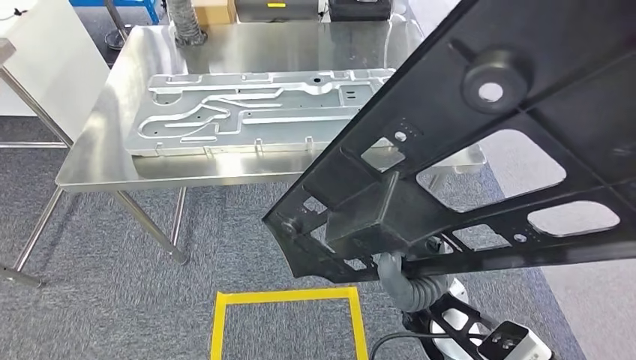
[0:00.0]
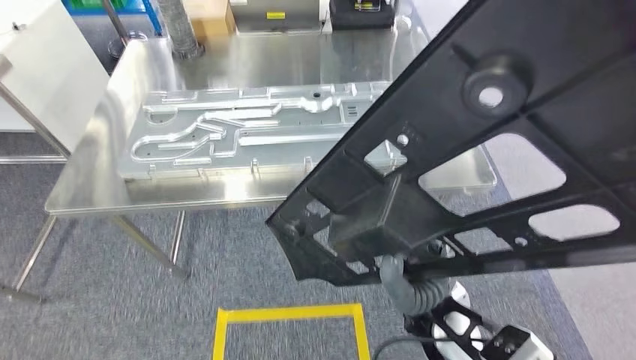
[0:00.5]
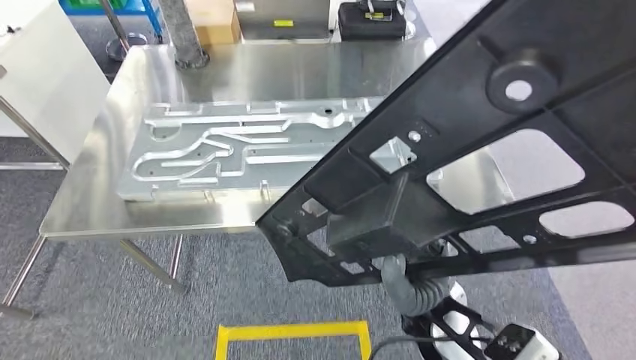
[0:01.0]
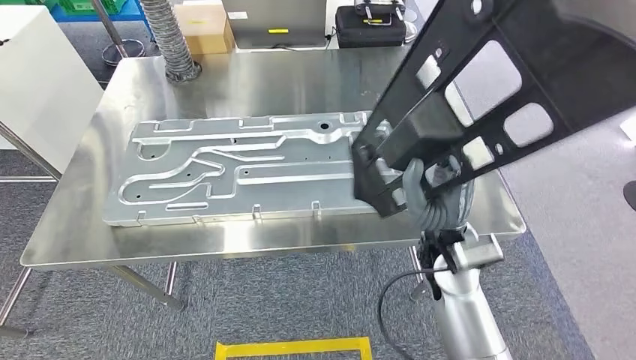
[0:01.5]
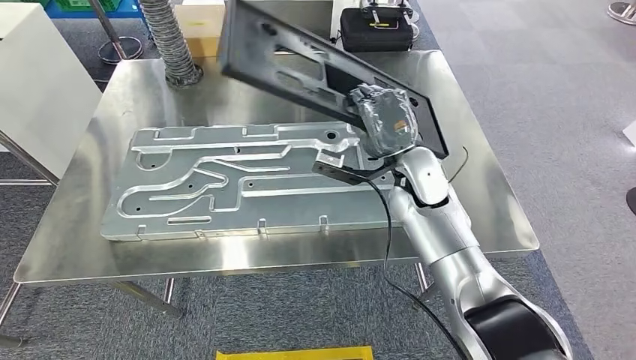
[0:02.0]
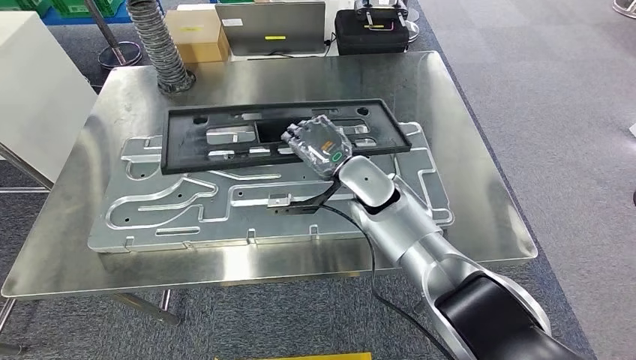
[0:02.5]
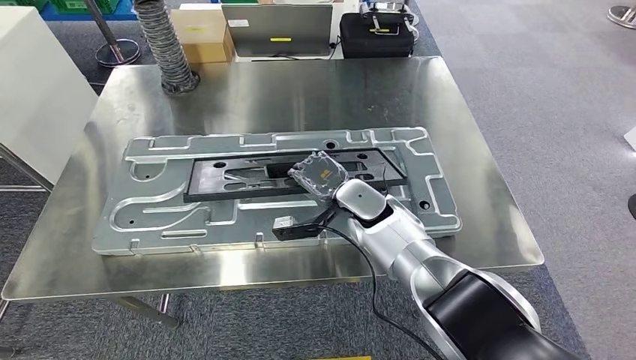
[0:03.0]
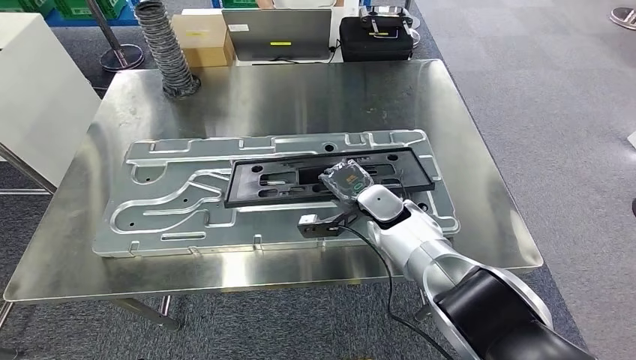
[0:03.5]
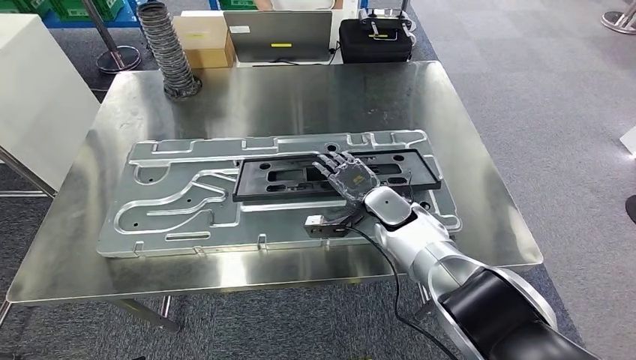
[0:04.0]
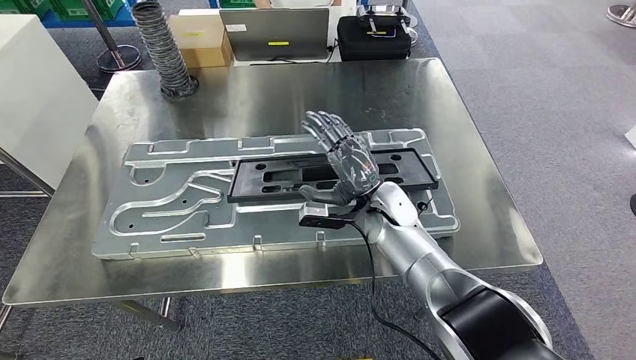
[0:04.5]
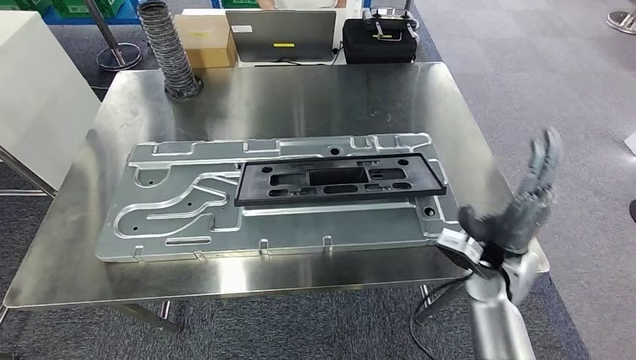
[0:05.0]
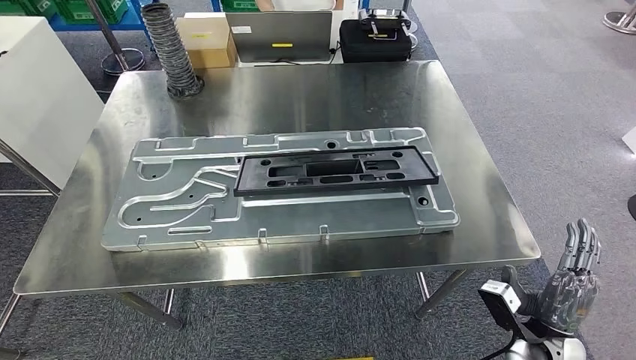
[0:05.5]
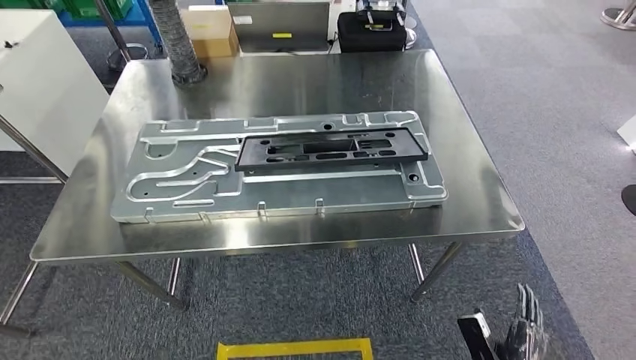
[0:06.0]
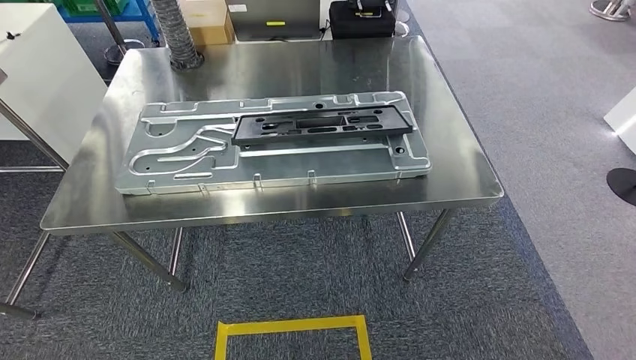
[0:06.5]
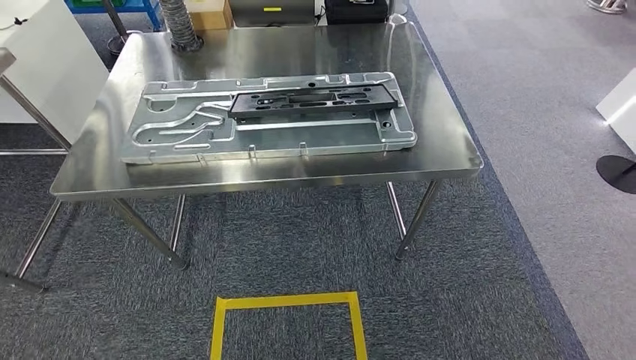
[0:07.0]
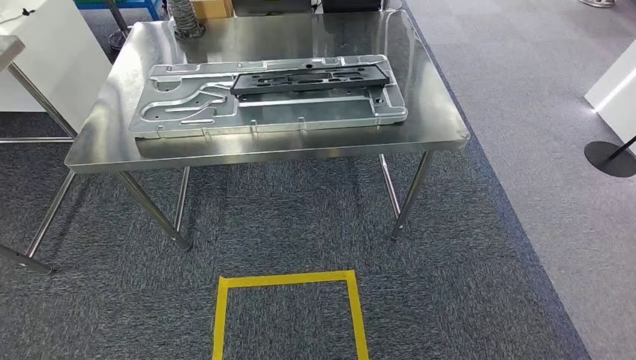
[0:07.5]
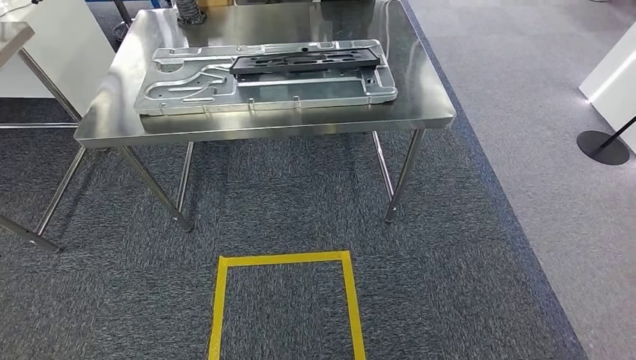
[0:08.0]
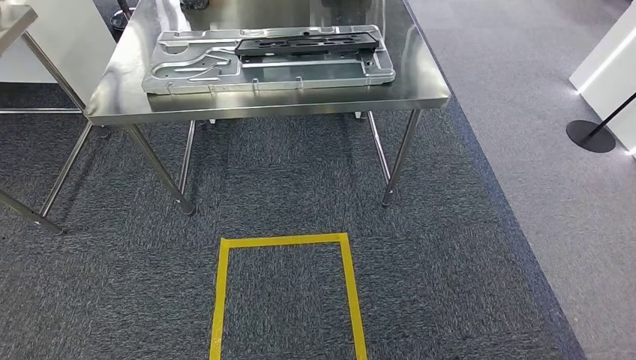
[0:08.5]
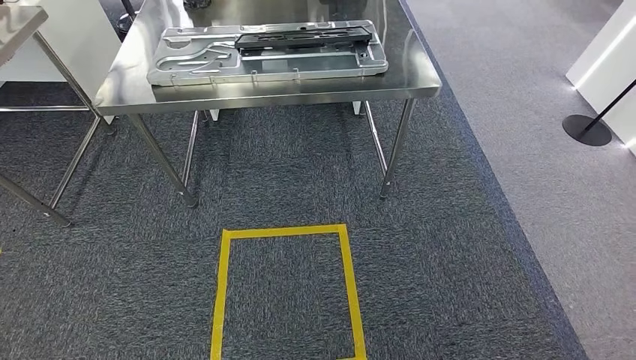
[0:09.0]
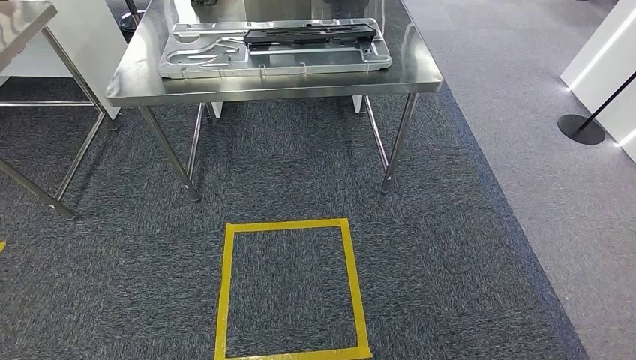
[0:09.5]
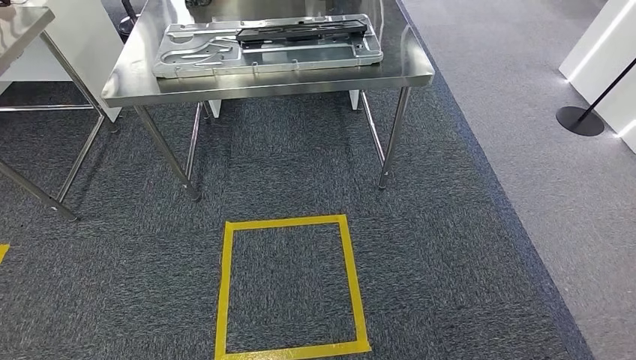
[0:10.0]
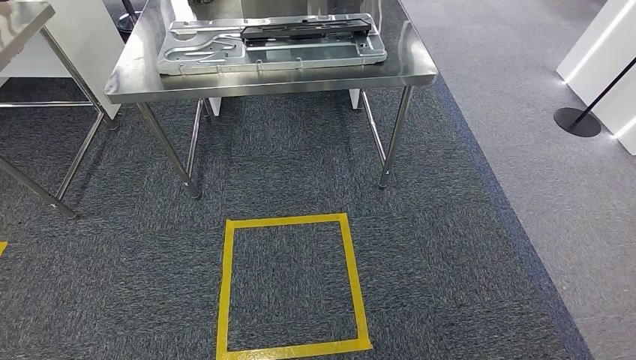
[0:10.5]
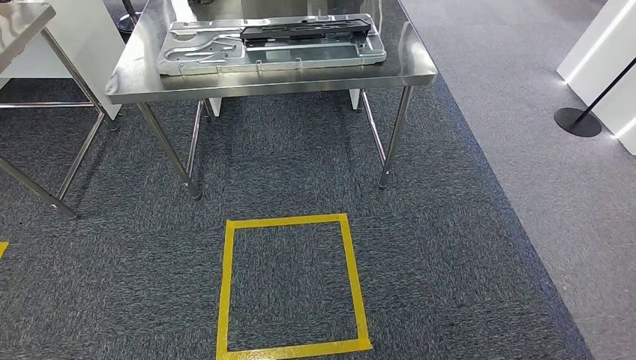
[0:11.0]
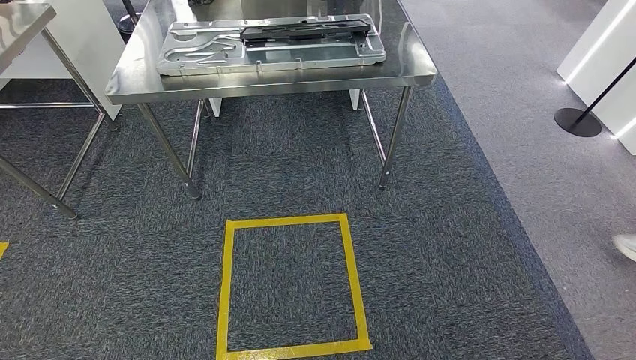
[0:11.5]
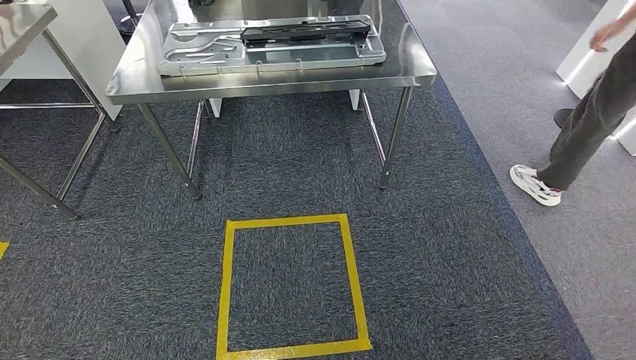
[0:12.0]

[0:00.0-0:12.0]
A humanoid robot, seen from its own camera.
Step, 0:01.5 to 0:05.5: Insert the large material into the corresponding hole on the workbench.
Step, 0:08.0 to 0:11.5: Move to the initial position of the shelf.
0:10.0 to 0:12.0: The hands move only a little.
